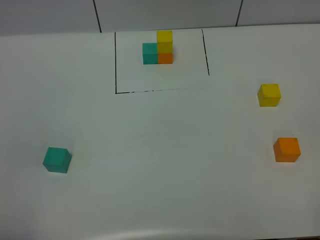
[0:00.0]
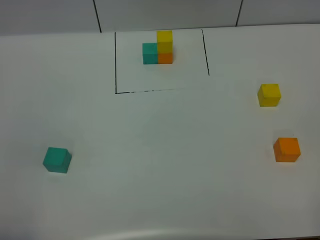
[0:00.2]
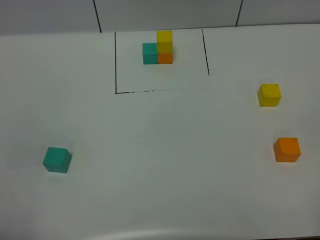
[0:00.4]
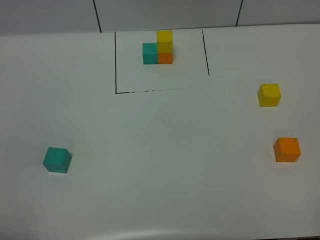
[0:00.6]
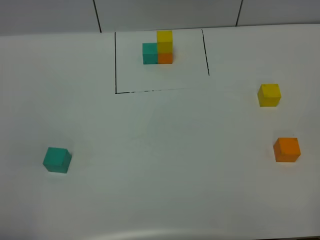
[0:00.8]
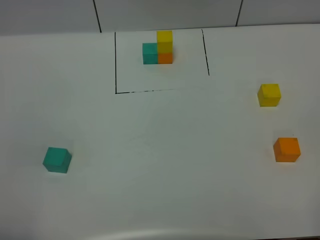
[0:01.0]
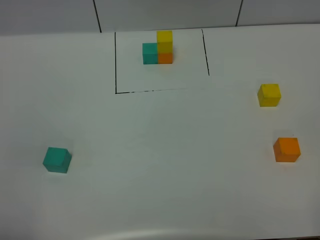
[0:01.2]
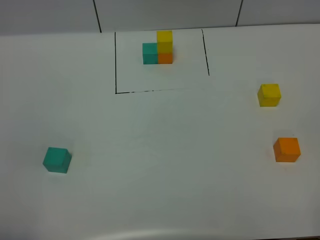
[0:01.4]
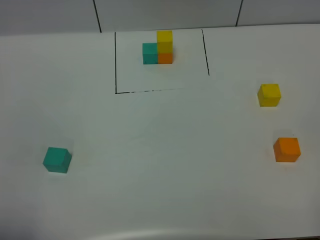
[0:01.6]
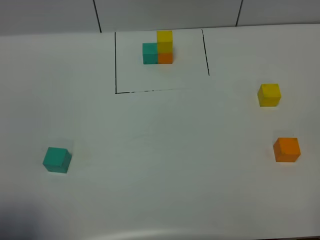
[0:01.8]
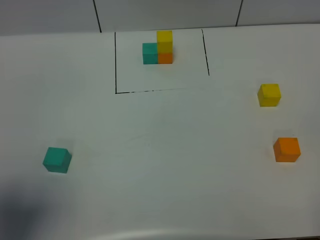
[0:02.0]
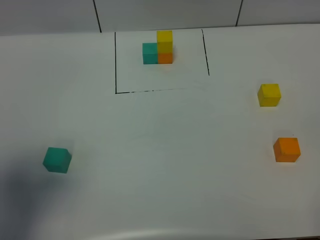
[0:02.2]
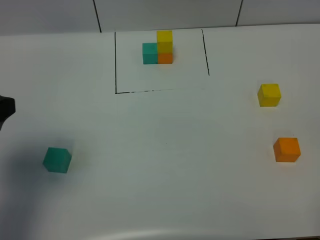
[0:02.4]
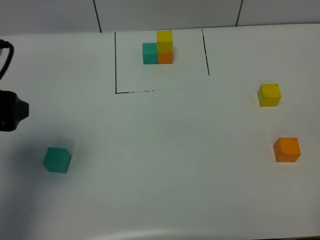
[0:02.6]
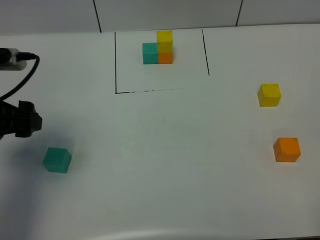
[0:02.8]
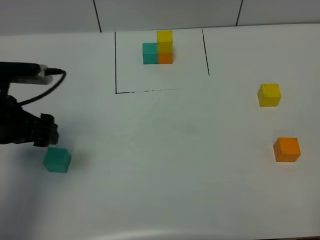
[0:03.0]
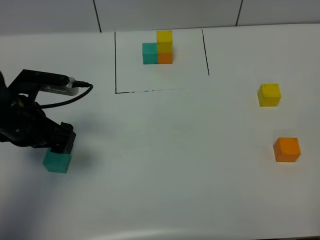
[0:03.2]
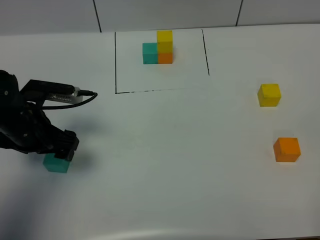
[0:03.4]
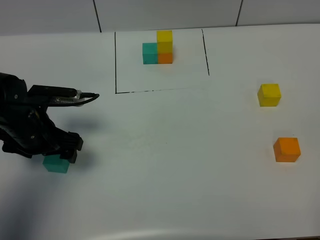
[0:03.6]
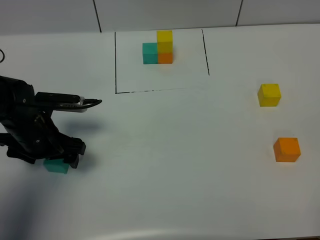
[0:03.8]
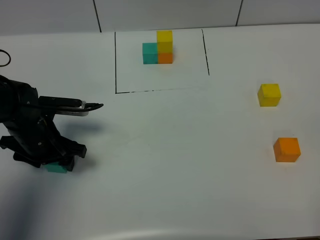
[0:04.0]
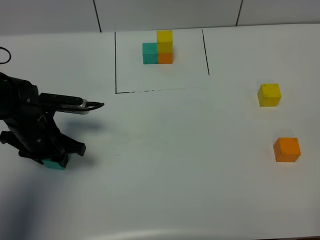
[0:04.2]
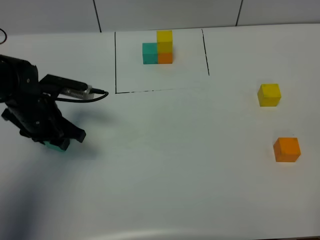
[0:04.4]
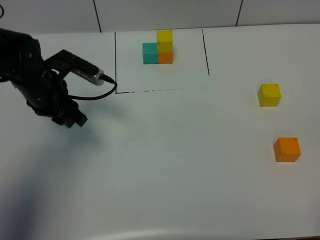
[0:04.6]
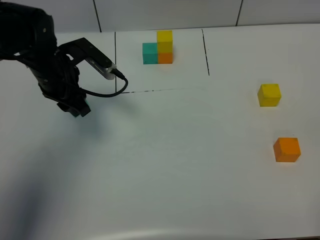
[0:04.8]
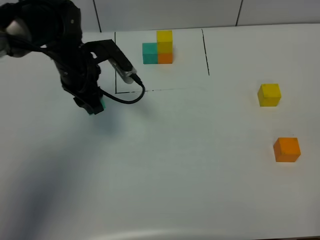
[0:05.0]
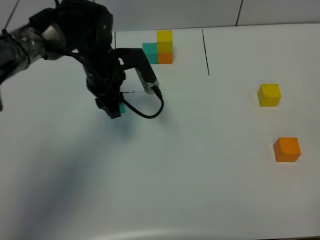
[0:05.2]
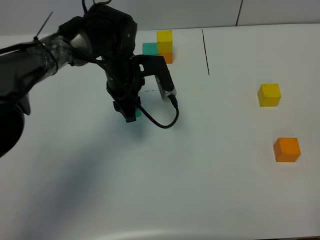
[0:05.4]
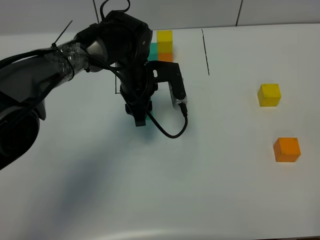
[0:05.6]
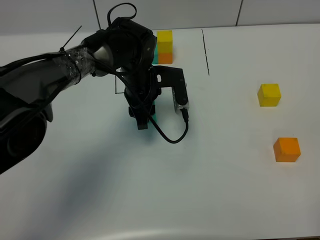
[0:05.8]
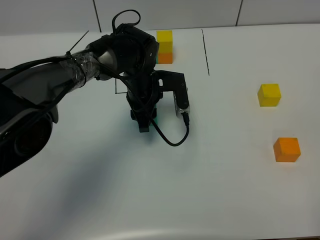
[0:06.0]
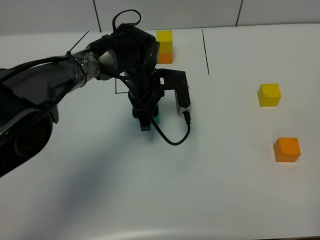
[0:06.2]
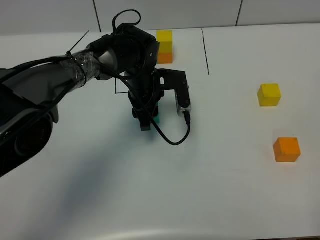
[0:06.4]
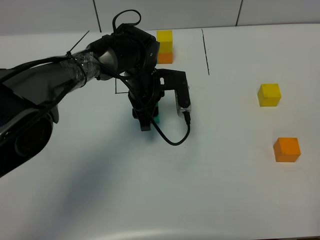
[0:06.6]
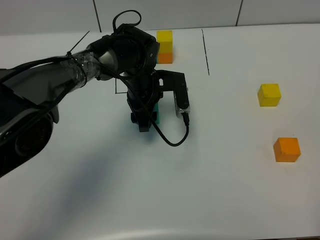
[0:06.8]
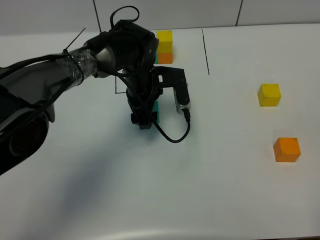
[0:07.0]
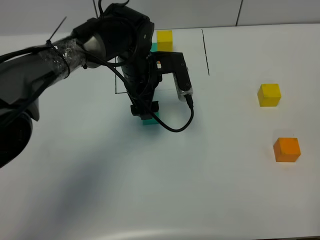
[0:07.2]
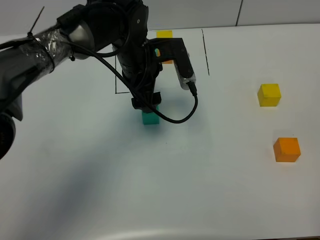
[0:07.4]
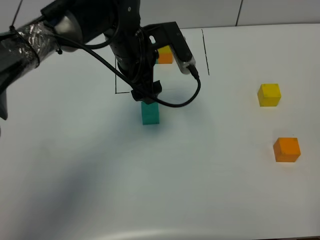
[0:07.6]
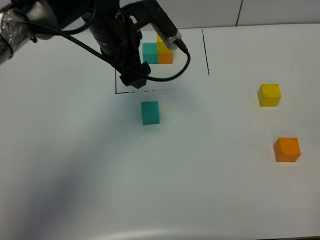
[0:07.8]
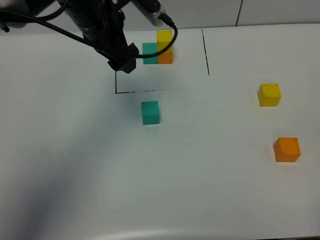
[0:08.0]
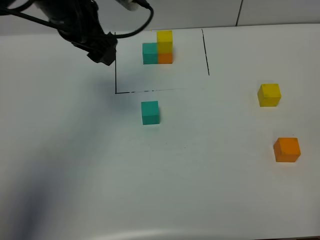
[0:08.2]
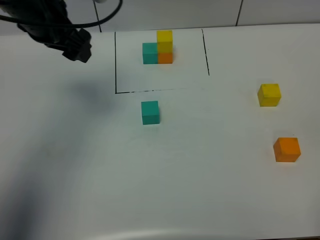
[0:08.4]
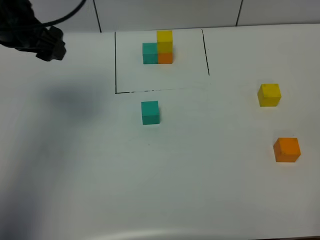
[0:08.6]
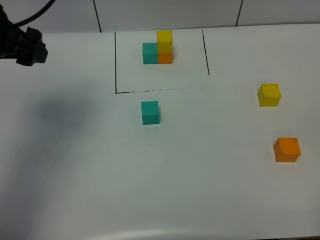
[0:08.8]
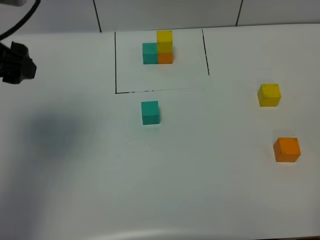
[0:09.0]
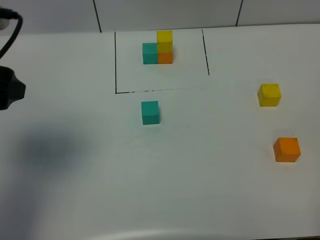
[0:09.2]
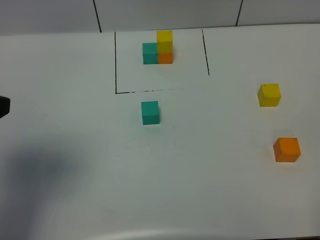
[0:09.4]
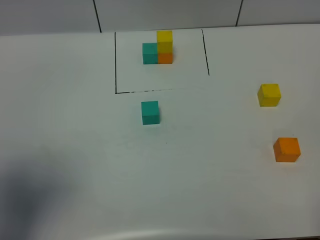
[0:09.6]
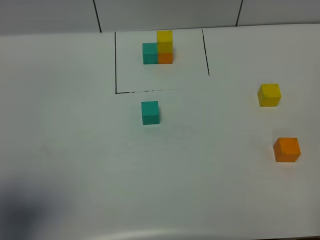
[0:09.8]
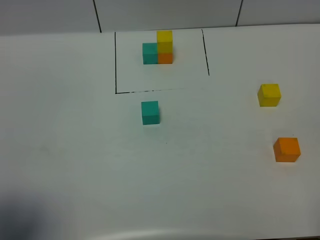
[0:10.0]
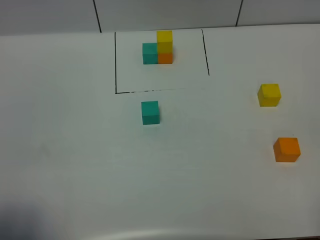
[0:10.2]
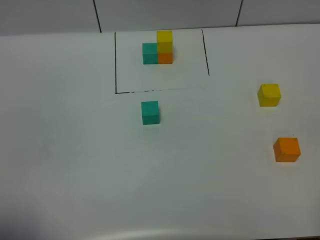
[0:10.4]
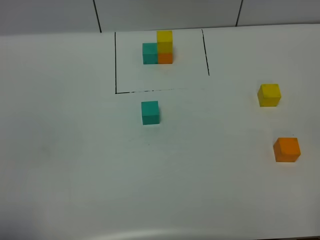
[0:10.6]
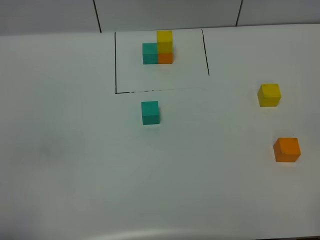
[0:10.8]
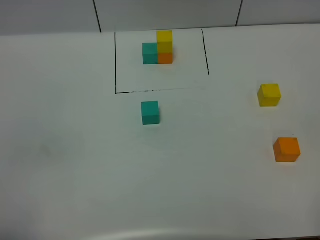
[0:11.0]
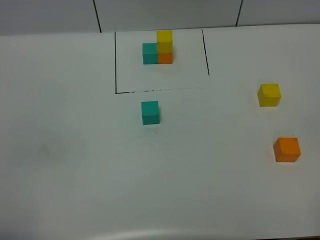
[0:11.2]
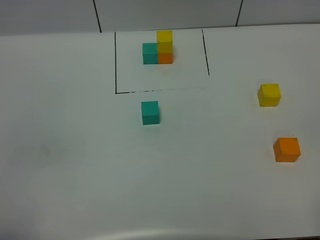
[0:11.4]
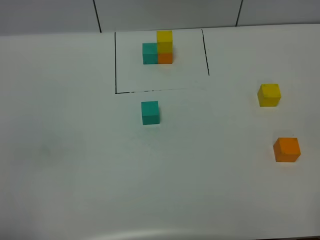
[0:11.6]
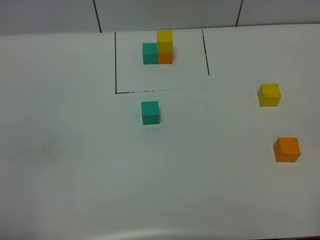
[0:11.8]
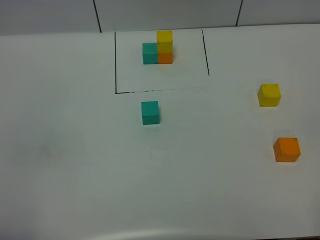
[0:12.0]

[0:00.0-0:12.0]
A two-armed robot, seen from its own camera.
Task of the whole recording: According to the building block template in front, assemble the scattered blocks together.
Step, 0:02.4 to 0:07.6: Put the green cube in the center of the table.
0:01.6 to 0:03.0: The left gripper is displaced forward by roughly 25 cm.
0:03.0 to 0:04.4: The left gripper moves downward and forward, roughly 10 cm, and closes its fingers.
0:04.4 to 0:06.0: The left gripper heads to the right and forward, covering roughly 20 cm.
0:06.0 to 0:07.6: The left gripper is displaced upward by some 10 cm, and opens its fingers.
0:07.6 to 0:09.0: The left gripper goes about 25 cm to the left, backward and upward.
0:09.0 to 0:10.4: The left gripper heads backward, covering approximately 25 cm.

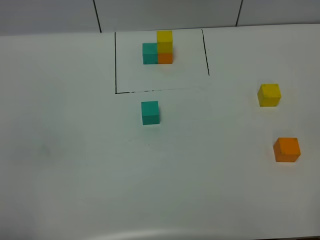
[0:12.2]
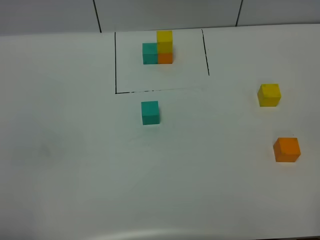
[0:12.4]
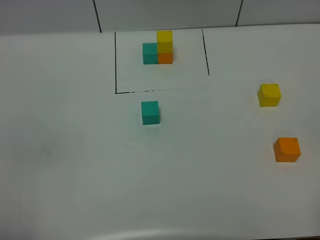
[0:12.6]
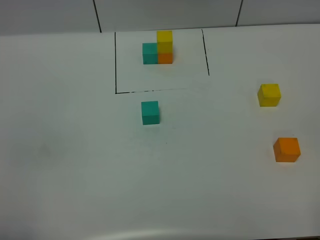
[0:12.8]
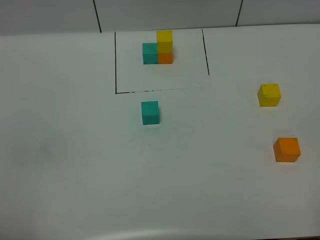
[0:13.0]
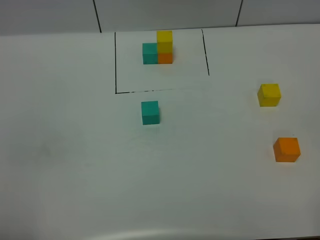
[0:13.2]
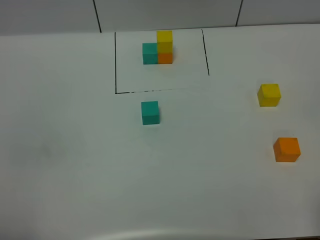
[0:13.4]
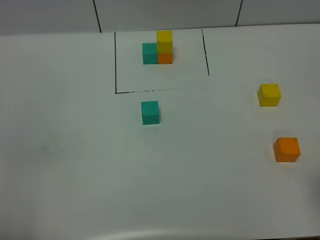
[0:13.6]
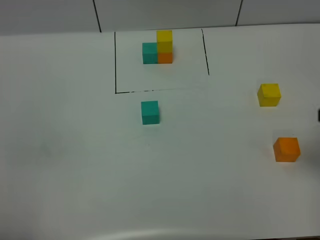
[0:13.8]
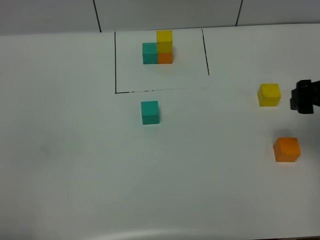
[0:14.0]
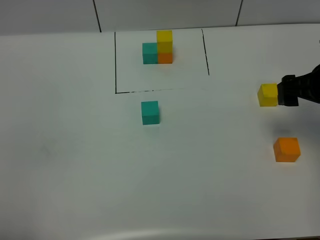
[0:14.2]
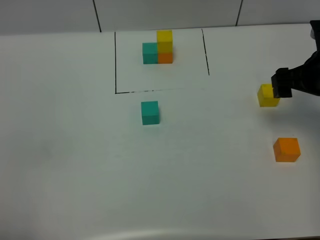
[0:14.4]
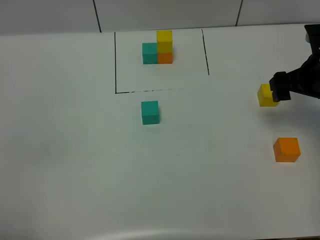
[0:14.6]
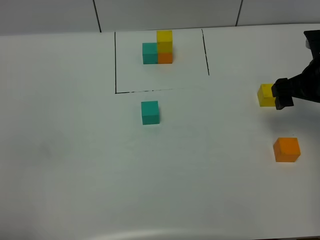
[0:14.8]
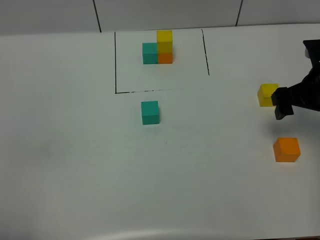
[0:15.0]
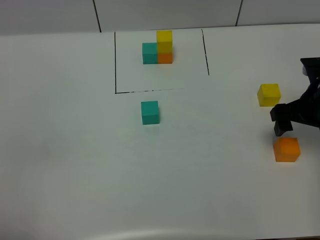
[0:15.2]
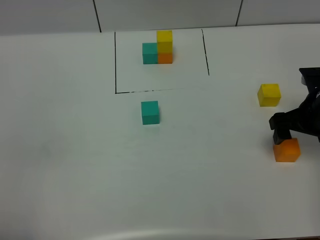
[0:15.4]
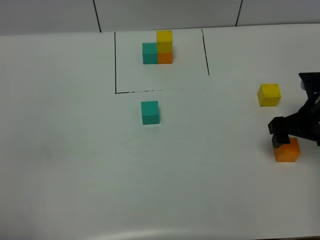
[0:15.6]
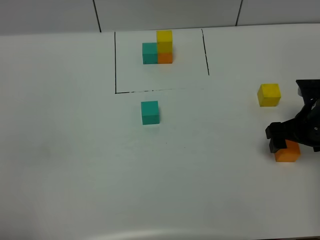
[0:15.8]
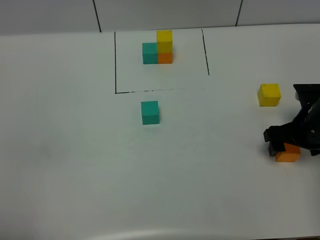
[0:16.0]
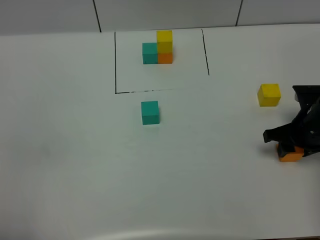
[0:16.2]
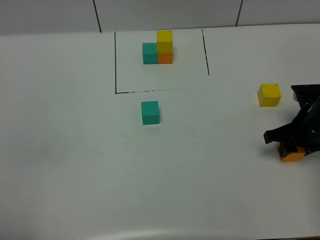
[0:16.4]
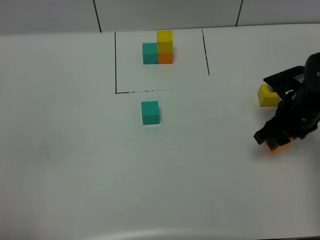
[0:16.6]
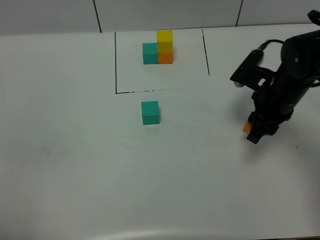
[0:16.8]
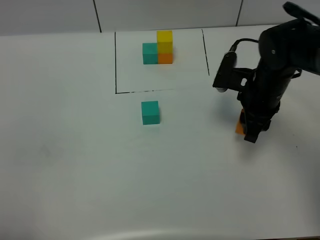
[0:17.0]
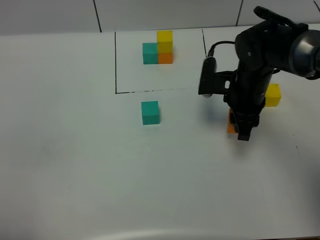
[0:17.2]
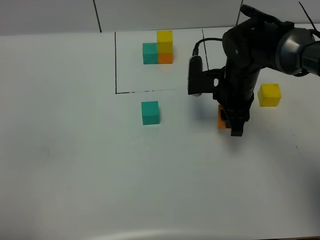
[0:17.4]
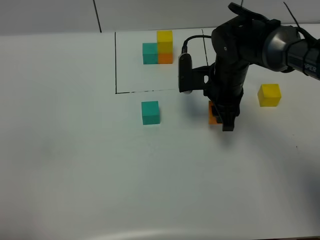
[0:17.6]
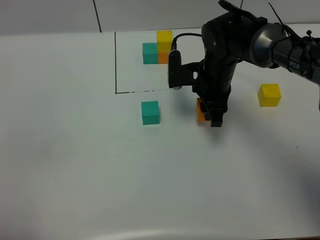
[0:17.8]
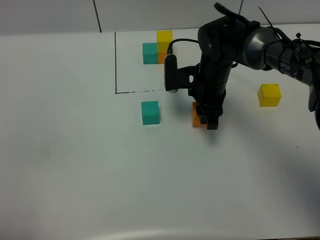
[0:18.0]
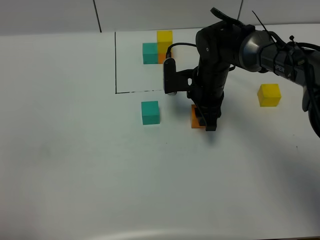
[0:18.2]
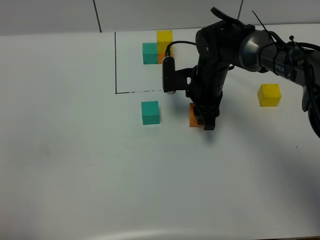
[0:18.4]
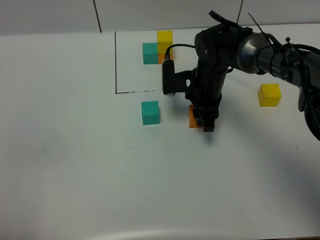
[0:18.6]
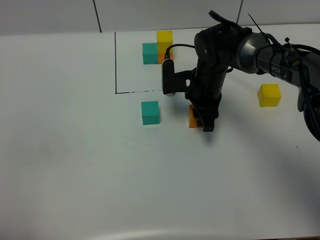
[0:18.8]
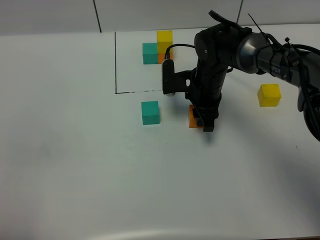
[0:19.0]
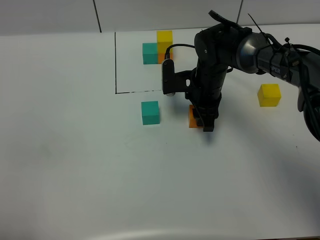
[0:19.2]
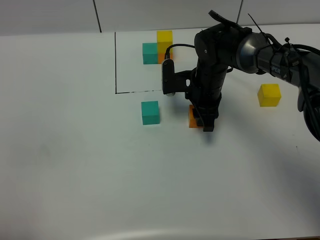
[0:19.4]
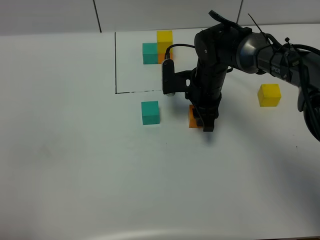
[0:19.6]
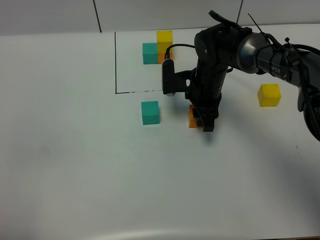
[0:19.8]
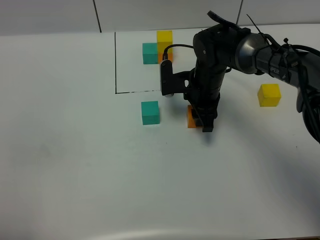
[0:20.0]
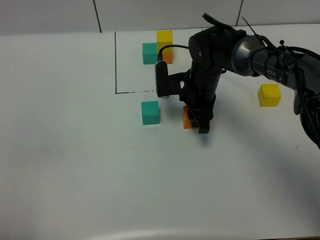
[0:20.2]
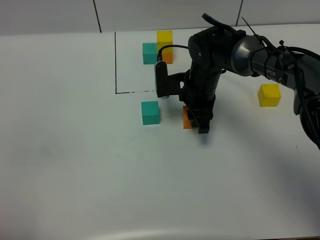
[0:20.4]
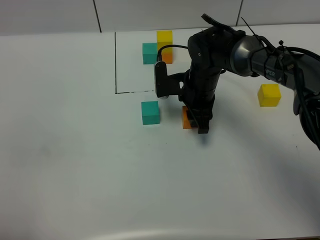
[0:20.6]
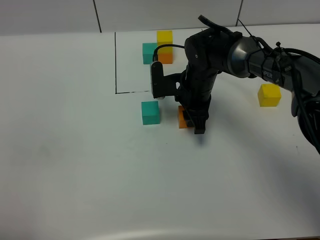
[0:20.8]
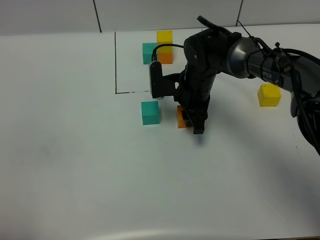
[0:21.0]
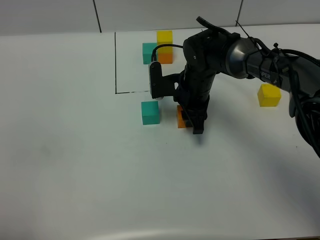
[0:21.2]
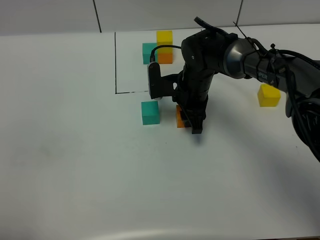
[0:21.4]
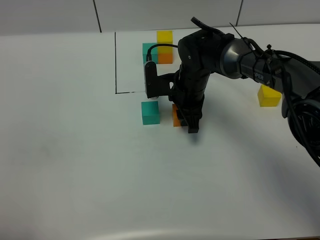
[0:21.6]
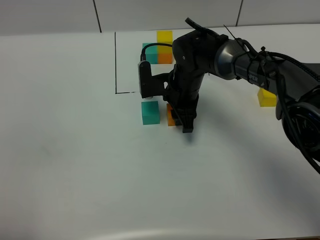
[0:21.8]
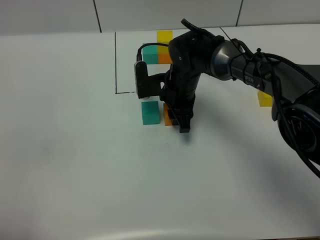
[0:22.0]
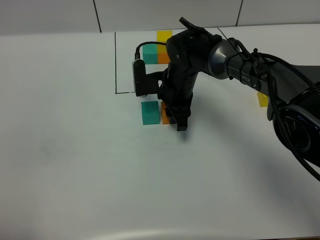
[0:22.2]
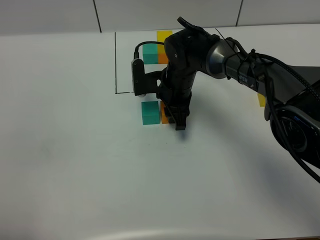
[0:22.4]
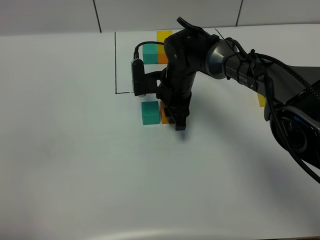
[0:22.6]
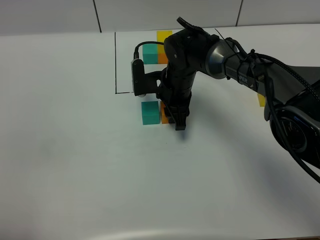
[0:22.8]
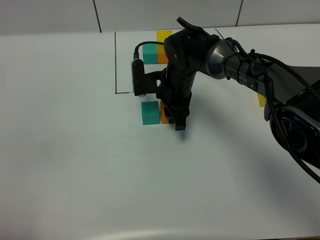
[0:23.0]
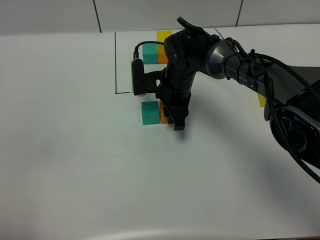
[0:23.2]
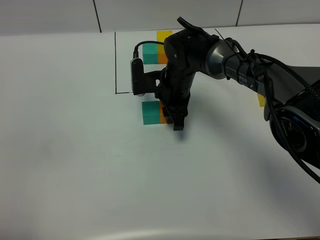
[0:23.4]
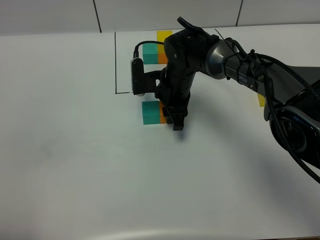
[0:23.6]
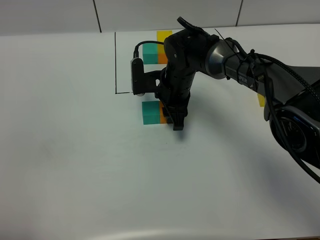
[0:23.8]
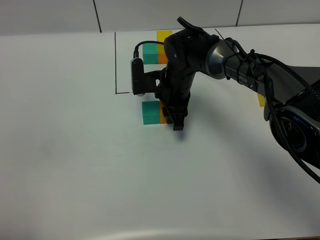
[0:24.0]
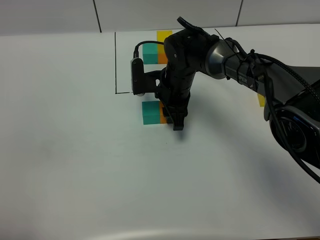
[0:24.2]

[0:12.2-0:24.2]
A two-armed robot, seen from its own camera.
Task of the whole recording: According to the building block template in front, assemble the scattered blocks together.
0:12.2 to 0:13.8: The right gripper goes roughly 25 cm forward.
0:13.8 to 0:15.2: The right gripper travels downward and forward by approximately 15 cm.
0:15.2 to 0:16.6: The right gripper closes.
0:16.6 to 0:18.2: The right gripper moves to the left and forward, approximately 15 cm.
0:18.2 to 0:19.8: Both grippers stay put.
0:19.8 to 0:22.6: The grippers move only a little.
0:22.6 to 0:24.2: The two grippers keep their place.
